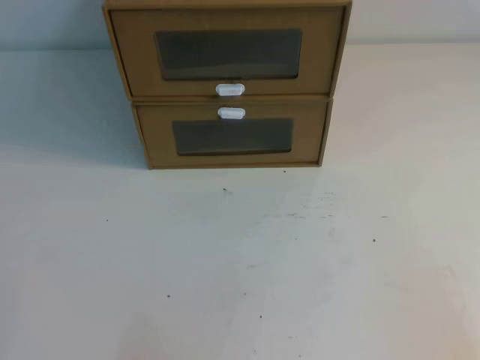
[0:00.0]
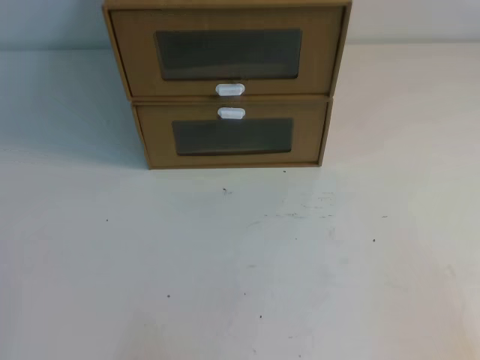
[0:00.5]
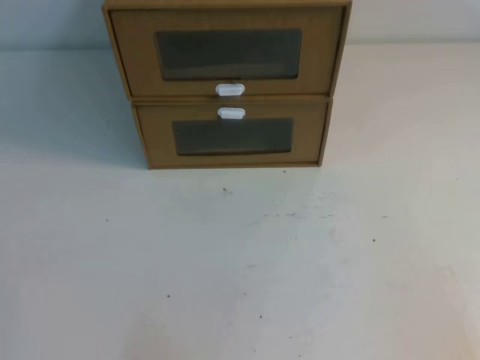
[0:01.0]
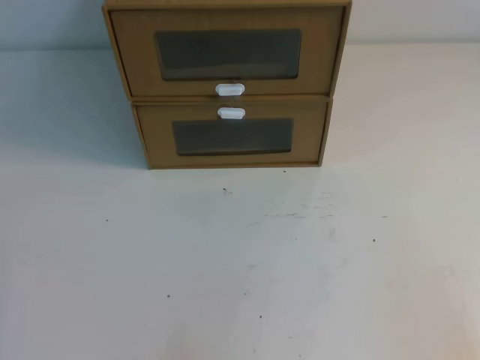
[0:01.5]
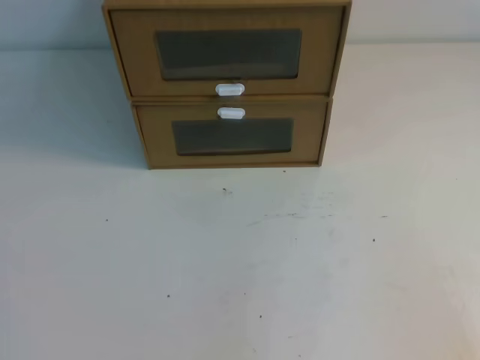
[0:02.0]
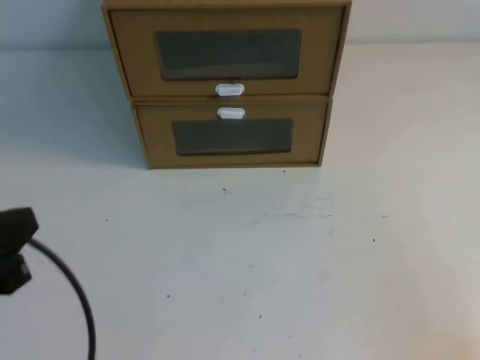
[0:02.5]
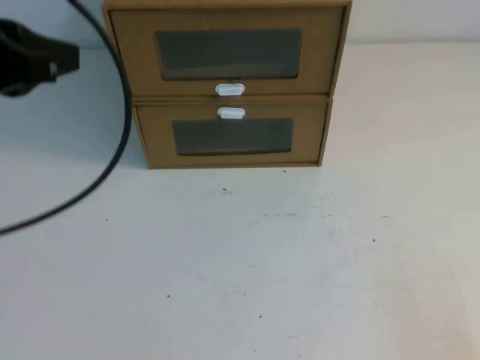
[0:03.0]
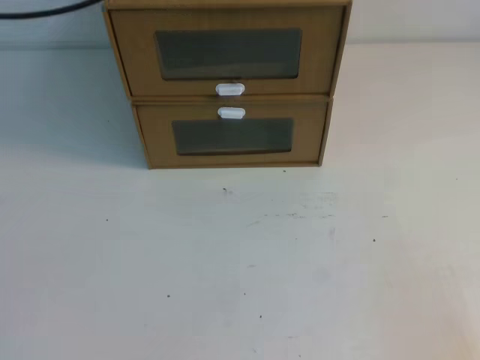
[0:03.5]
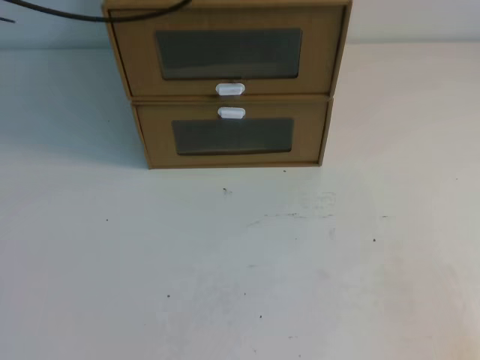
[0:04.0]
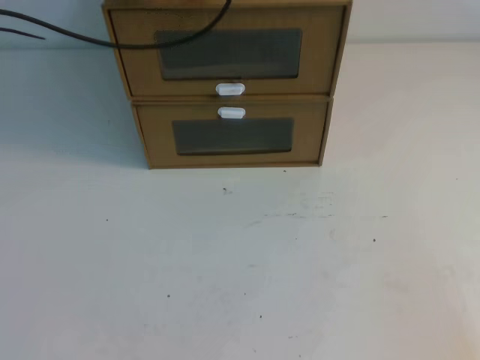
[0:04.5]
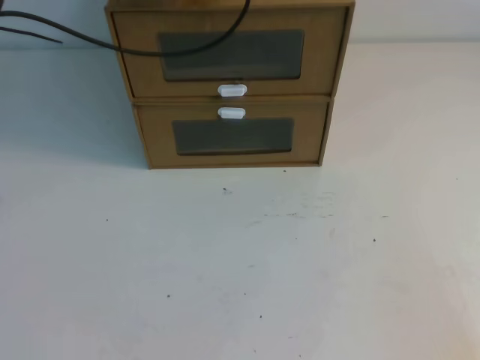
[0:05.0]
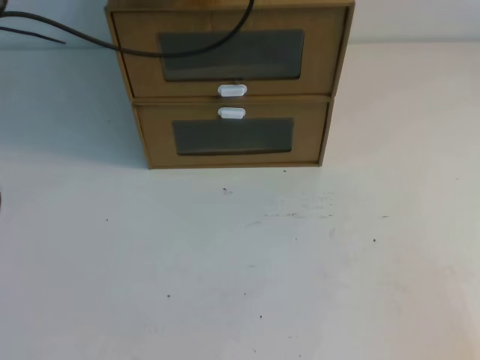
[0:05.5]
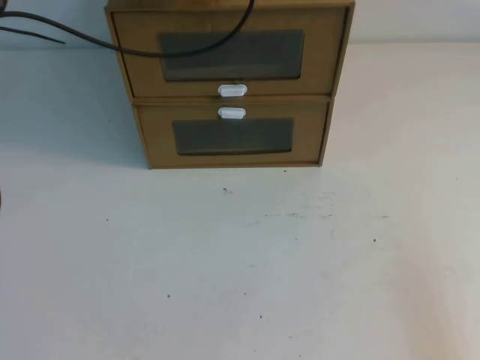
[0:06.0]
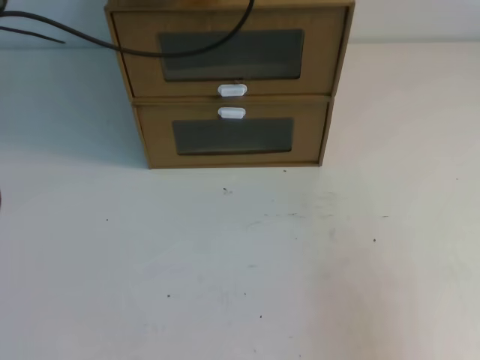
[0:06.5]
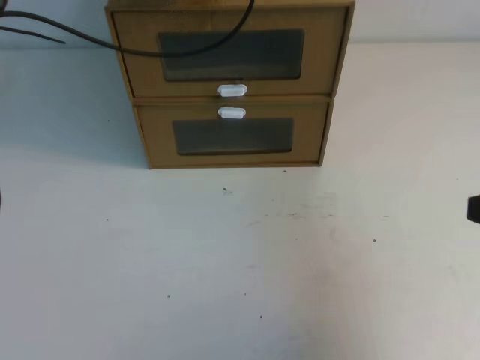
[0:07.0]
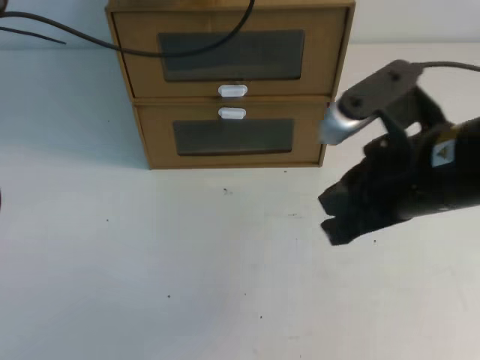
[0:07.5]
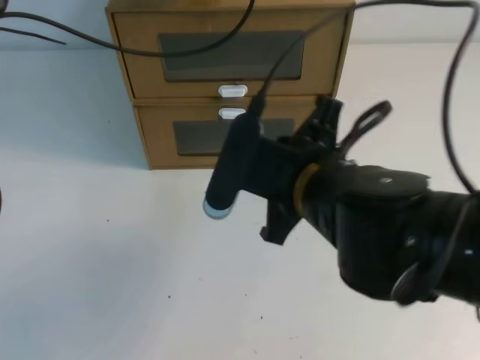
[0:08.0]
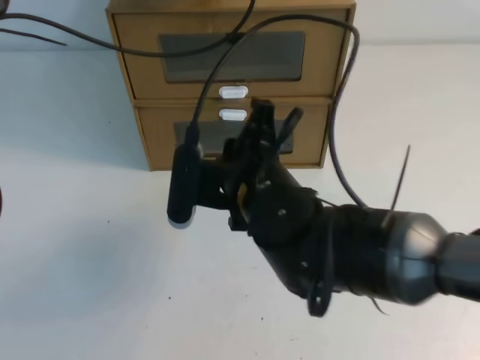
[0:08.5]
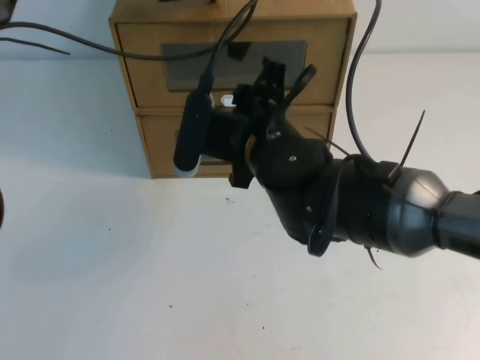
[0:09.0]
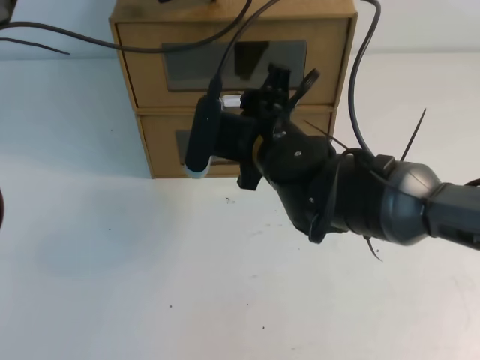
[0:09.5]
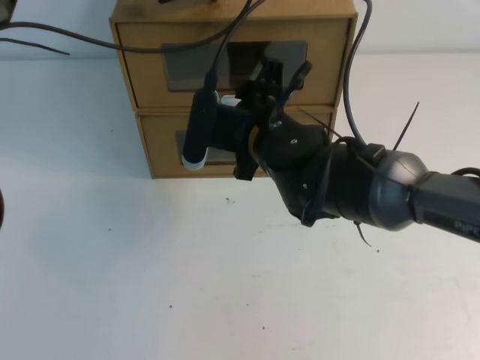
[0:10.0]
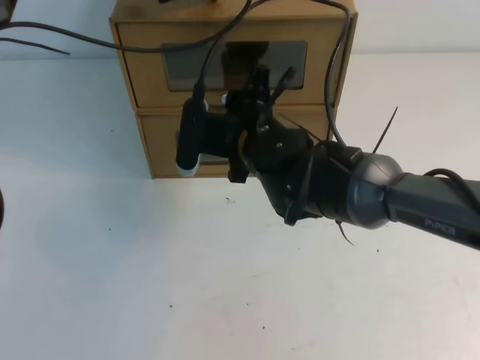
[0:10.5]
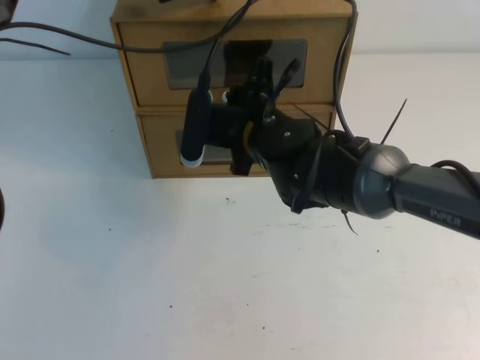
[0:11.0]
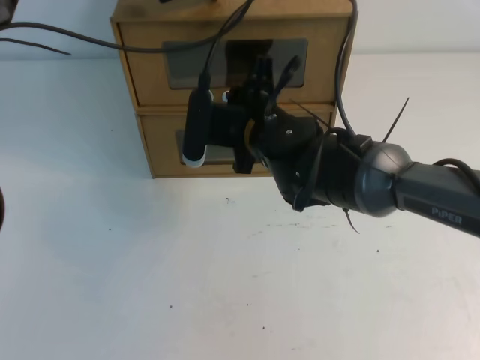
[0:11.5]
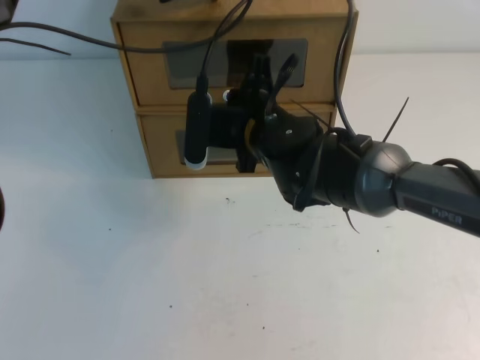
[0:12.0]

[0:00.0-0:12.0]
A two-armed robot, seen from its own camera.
Task of the whole recording: open the shoebox on the table.
0:02.0 to 0:04.0: The left gripper heads forward and upward, covering approximately 40 cm.
0:04.0 to 0:06.0: The left gripper ends up roughly 5 cm from where it was.
0:06.0 to 0:08.0: The right gripper heads to the left and forward, covering some 30 cm.
0:08.0 to 0:10.0: The right gripper moves forward and to the left, approximately 10 cm, and opens up.
0:10.0 to 0:12.0: The right gripper closes its fingers.

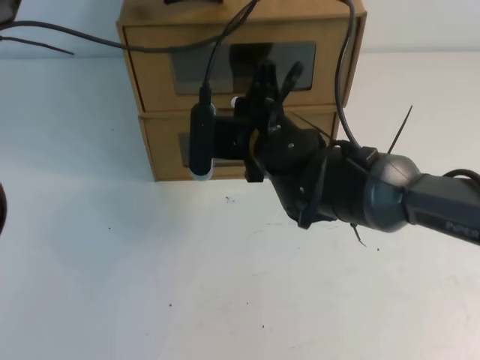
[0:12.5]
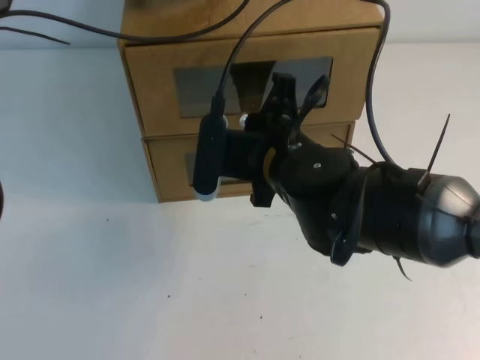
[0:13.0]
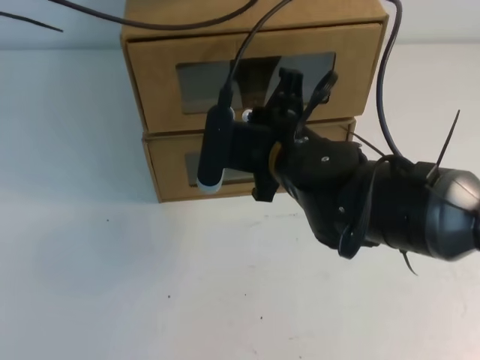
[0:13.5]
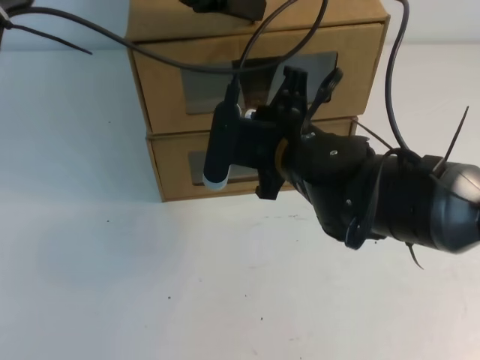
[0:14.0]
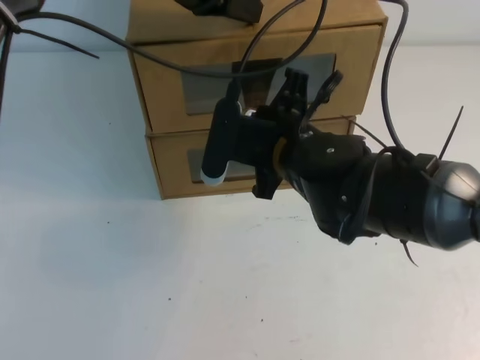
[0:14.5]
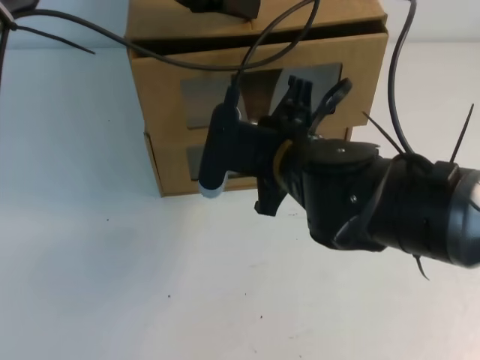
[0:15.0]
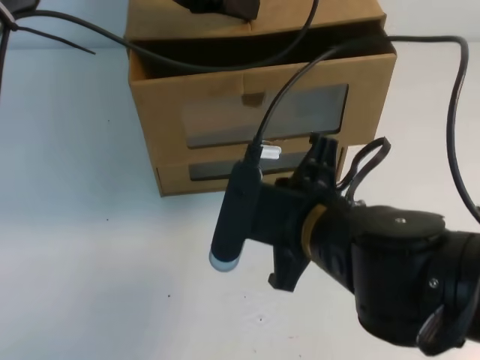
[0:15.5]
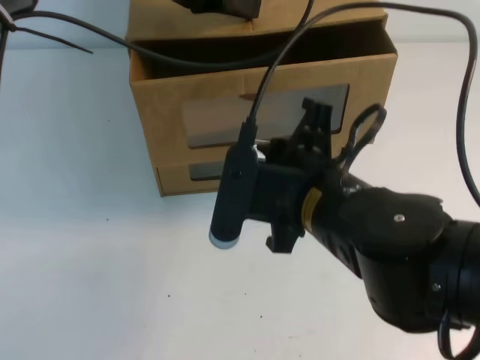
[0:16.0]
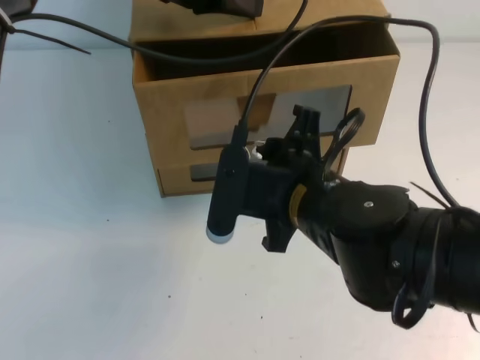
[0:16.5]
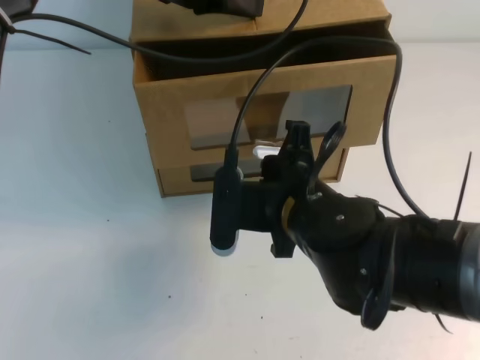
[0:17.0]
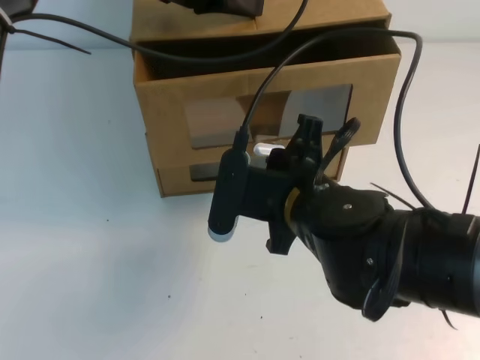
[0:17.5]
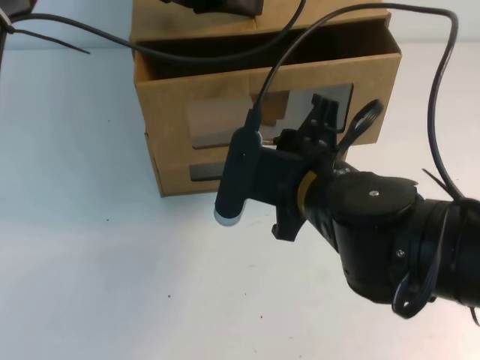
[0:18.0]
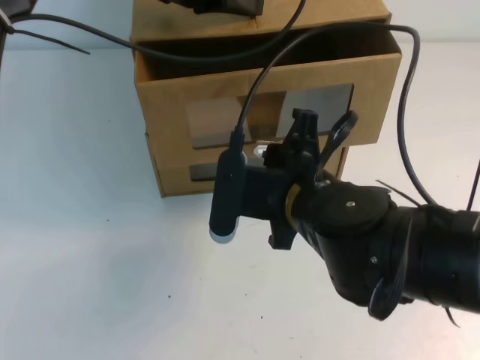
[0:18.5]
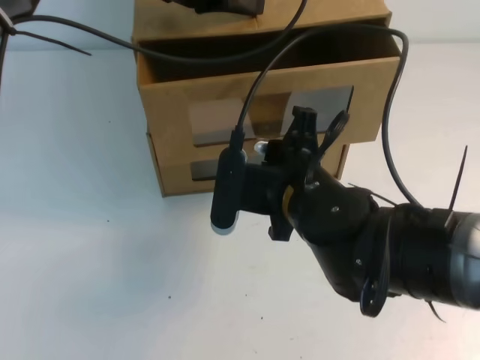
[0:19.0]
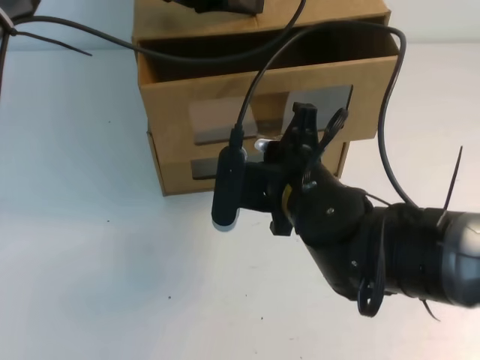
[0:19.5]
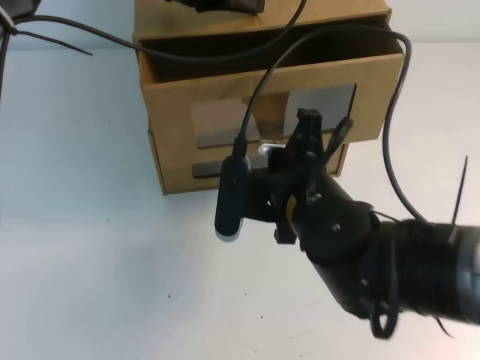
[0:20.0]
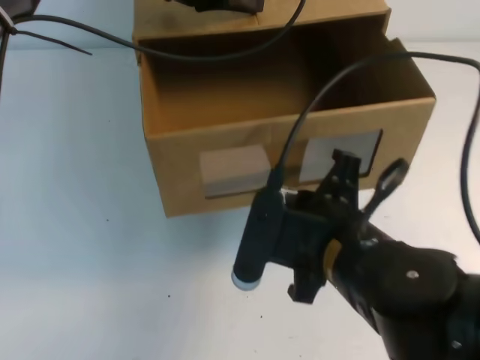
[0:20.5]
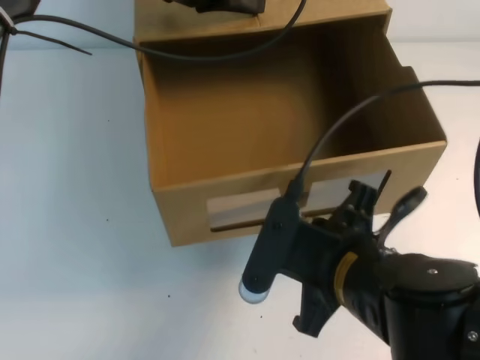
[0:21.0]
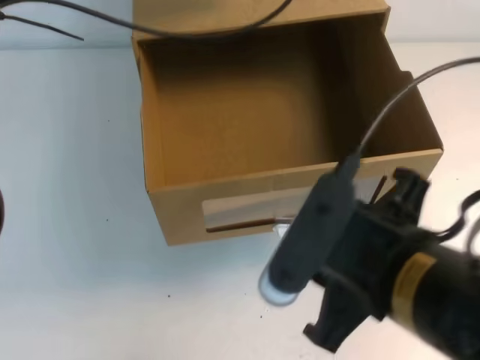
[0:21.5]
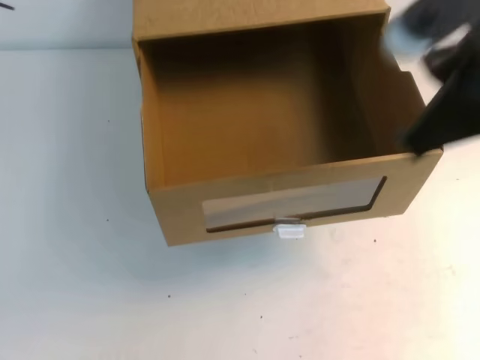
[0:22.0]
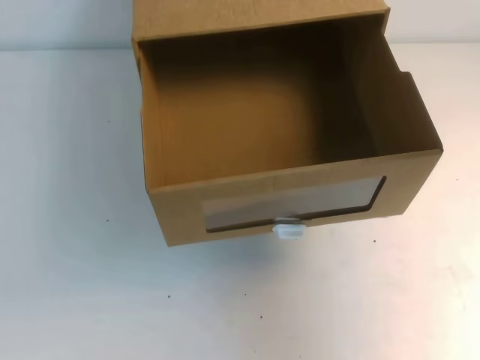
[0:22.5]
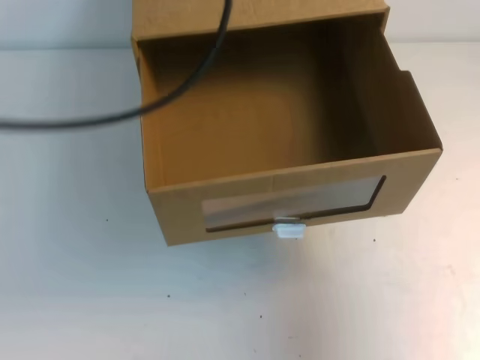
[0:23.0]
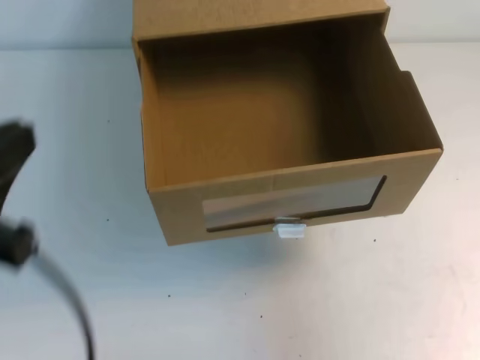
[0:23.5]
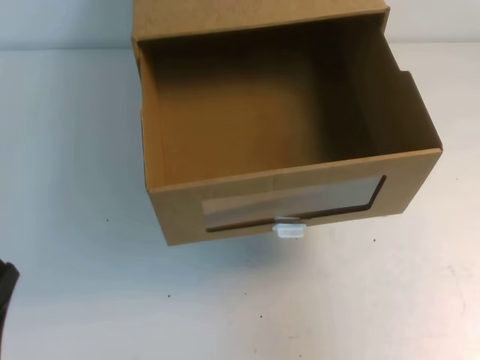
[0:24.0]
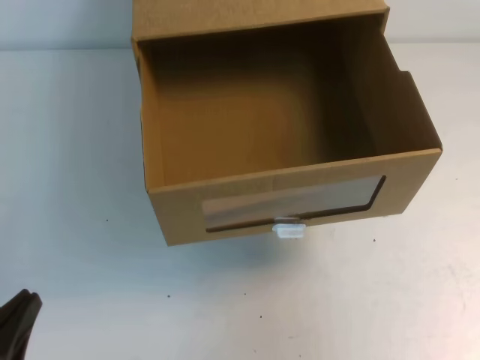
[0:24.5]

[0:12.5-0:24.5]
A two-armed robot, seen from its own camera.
Task of the whole recording: open the shoebox on the table.
0:12.5 to 0:14.5: The right gripper ends up about 5 cm from where it was. The left gripper travels backward by about 5 cm.
0:14.5 to 0:16.5: The right gripper travels backward by roughly 5 cm, and opens.
0:16.5 to 0:18.5: The grippers stay close to where they were, moving slightly.
0:18.5 to 0:20.5: The right gripper heads backward, covering roughly 5 cm, and closes.
0:20.5 to 0:22.5: The right gripper moves to the right and upward, some 30 cm, and opens, then closes again. Meanwhile the left gripper moves upward and backward, approximately 20 cm.
0:22.5 to 0:24.5: The right gripper goes approximately 10 cm backward. The left gripper goes about 40 cm downward and backward.

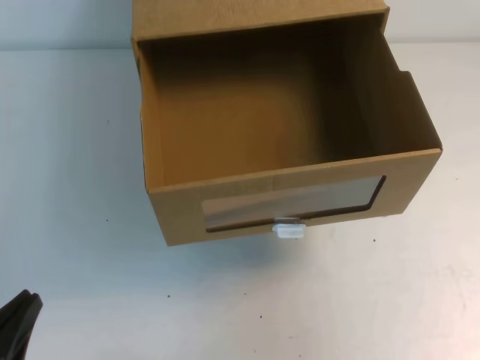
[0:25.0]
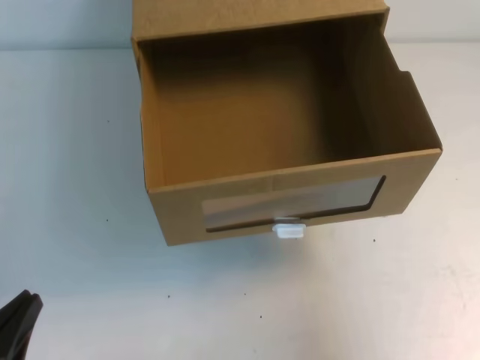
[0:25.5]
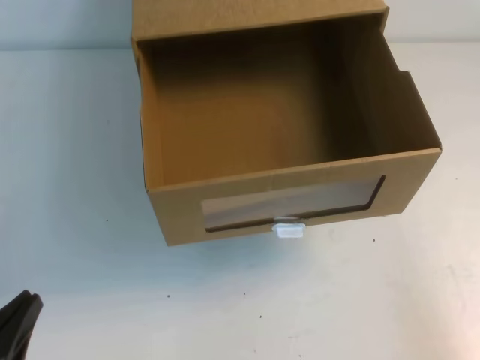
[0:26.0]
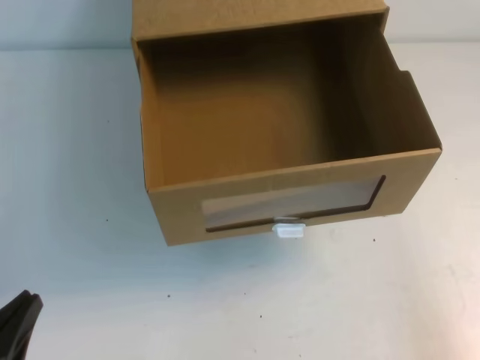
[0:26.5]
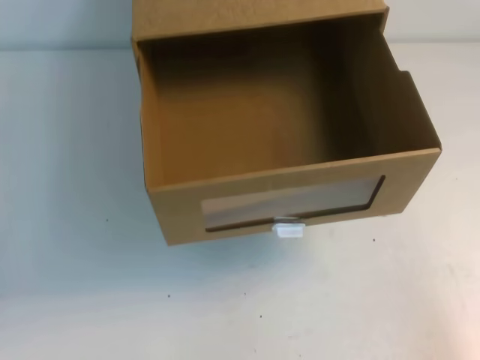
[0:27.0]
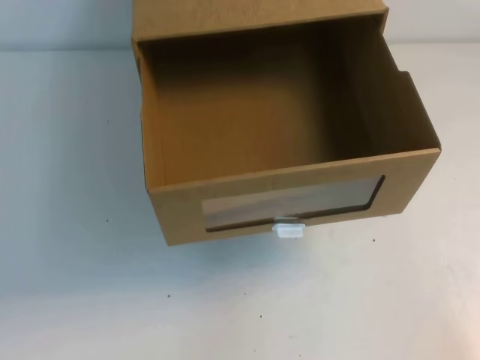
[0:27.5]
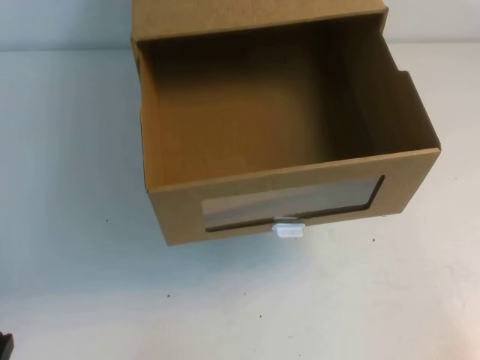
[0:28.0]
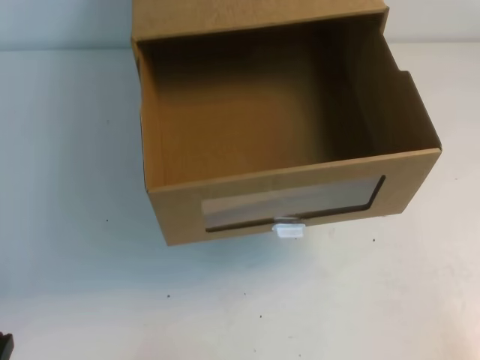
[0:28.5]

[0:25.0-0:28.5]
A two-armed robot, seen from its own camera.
Task of the whole recording: open the shoebox on the table.
Step, 0:25.0 to 0:28.5: Open the shoe box.
0:25.0 to 0:27.0: The right gripper travels downward and backward by about 25 cm.
